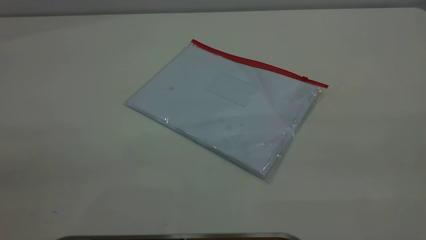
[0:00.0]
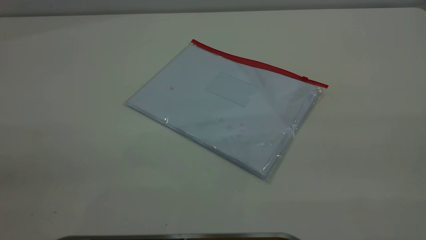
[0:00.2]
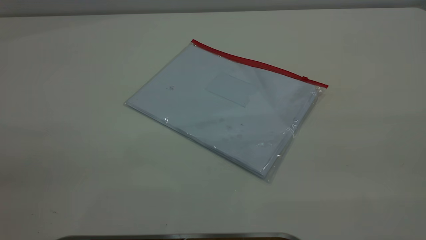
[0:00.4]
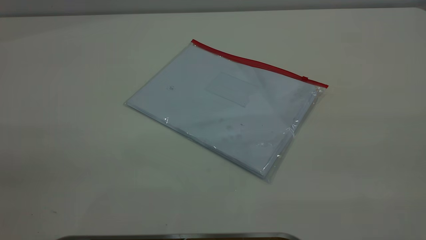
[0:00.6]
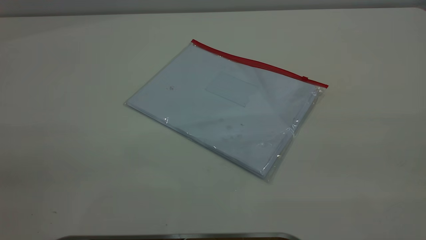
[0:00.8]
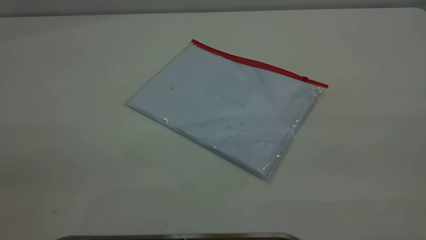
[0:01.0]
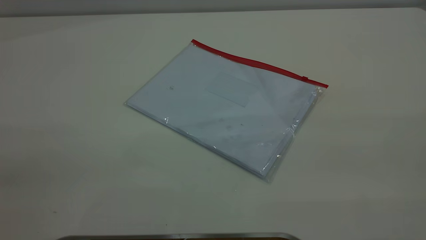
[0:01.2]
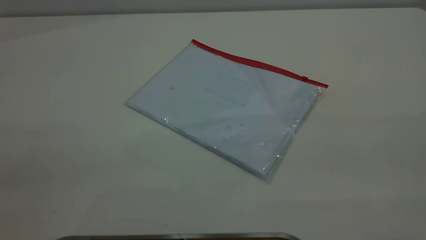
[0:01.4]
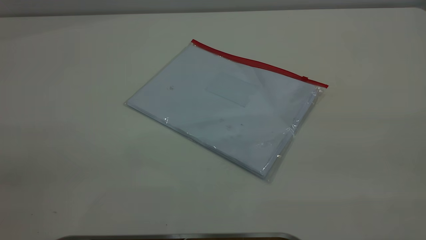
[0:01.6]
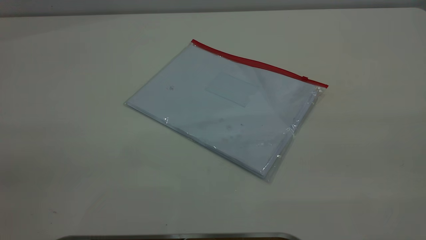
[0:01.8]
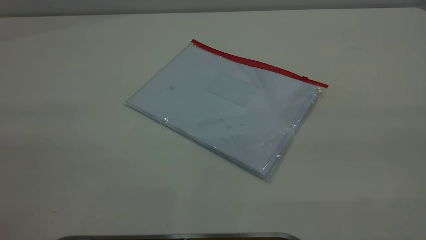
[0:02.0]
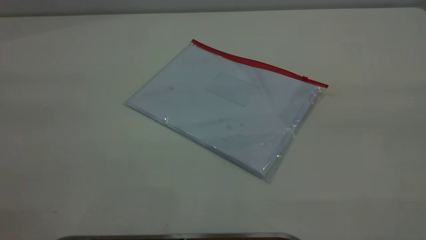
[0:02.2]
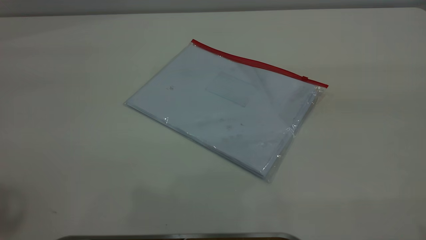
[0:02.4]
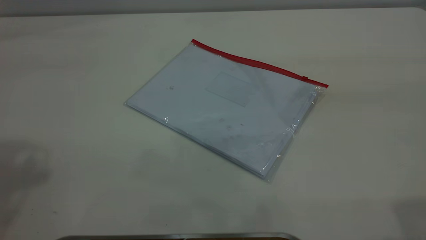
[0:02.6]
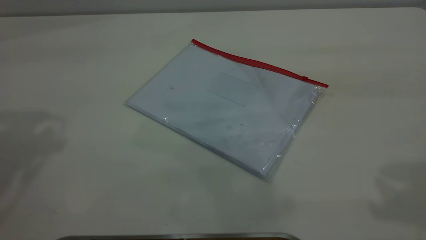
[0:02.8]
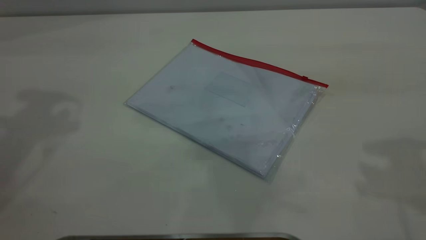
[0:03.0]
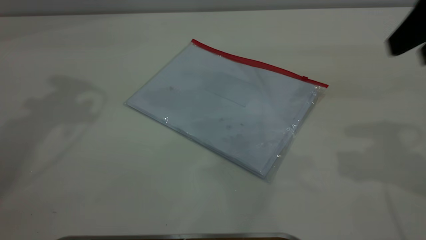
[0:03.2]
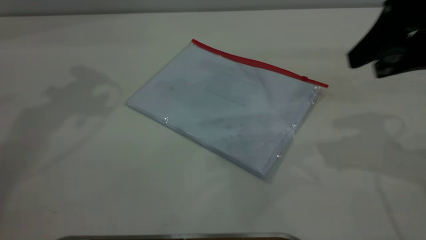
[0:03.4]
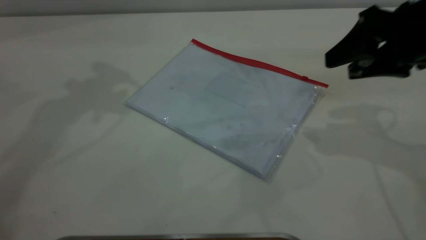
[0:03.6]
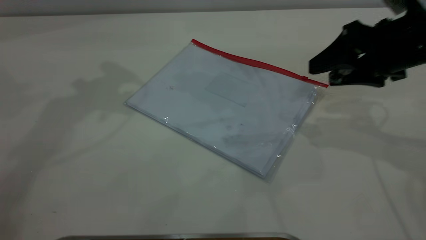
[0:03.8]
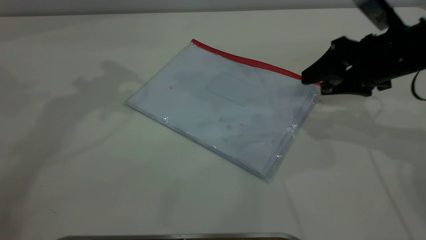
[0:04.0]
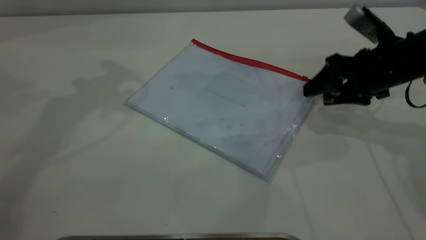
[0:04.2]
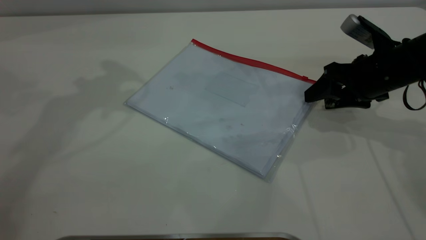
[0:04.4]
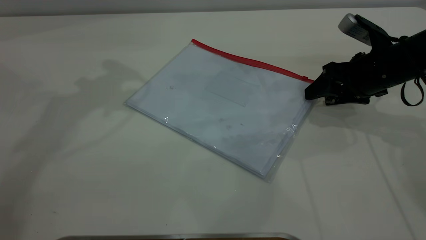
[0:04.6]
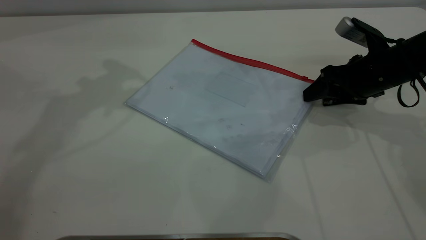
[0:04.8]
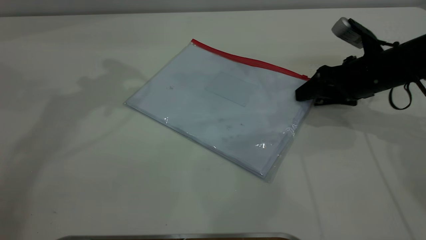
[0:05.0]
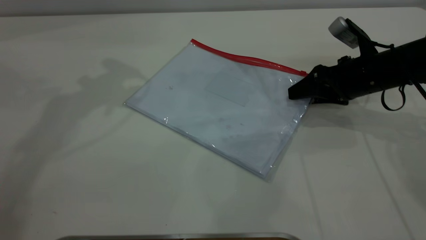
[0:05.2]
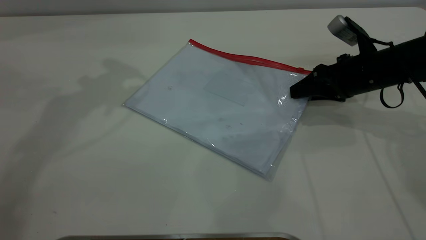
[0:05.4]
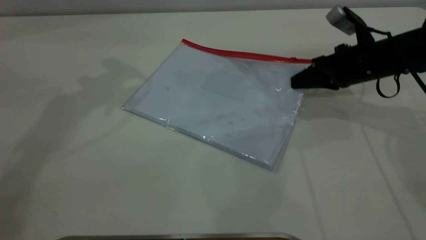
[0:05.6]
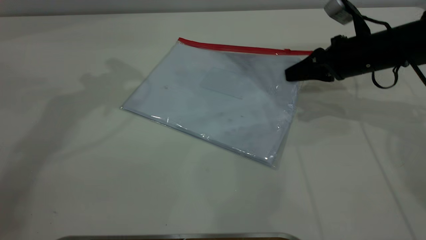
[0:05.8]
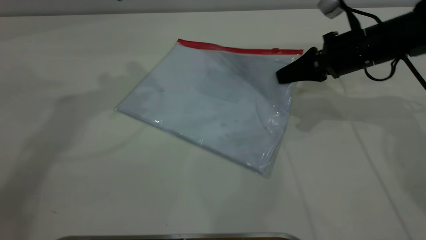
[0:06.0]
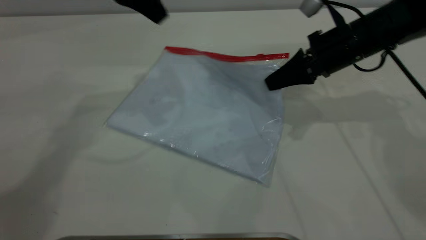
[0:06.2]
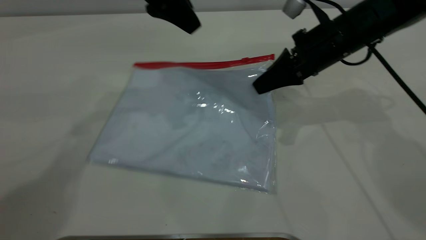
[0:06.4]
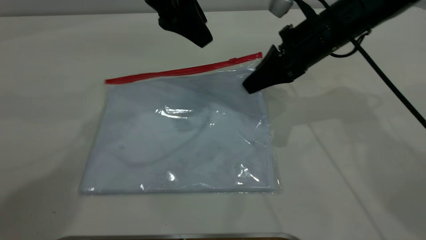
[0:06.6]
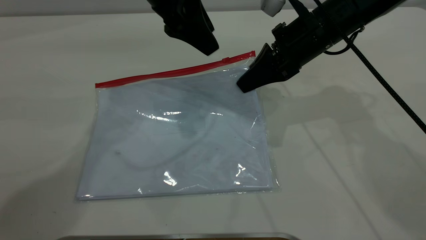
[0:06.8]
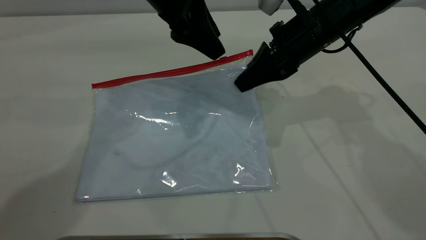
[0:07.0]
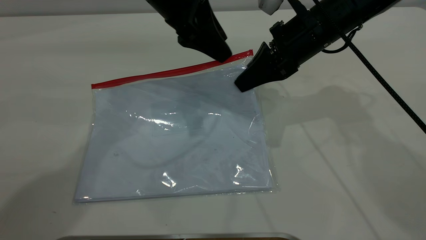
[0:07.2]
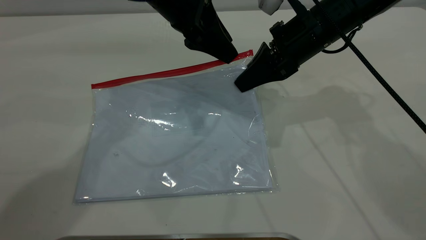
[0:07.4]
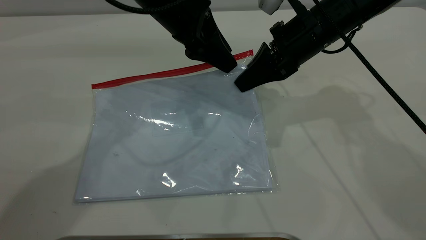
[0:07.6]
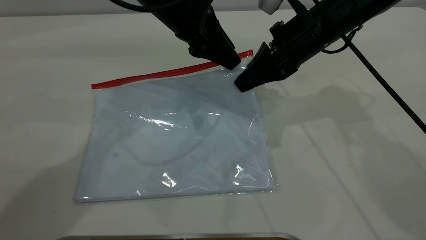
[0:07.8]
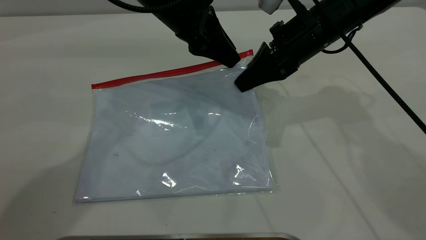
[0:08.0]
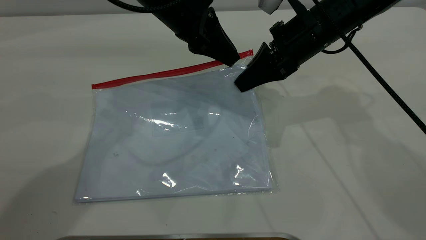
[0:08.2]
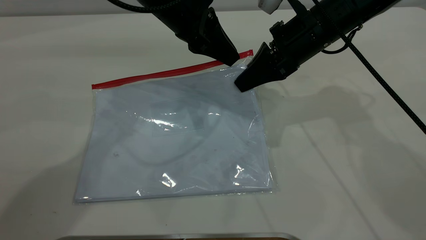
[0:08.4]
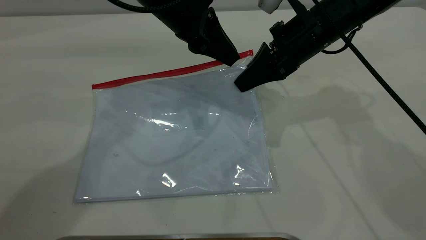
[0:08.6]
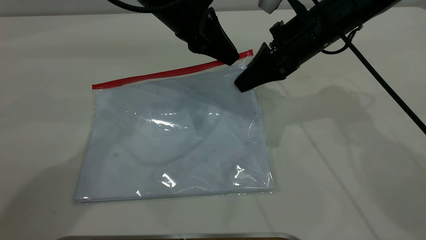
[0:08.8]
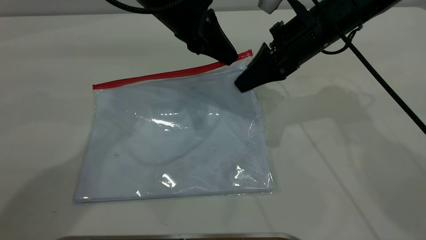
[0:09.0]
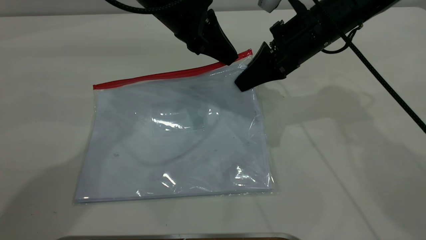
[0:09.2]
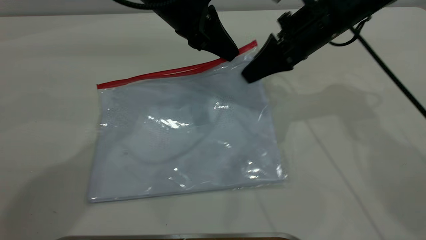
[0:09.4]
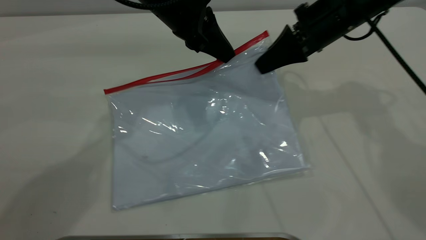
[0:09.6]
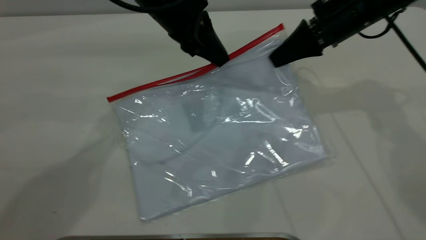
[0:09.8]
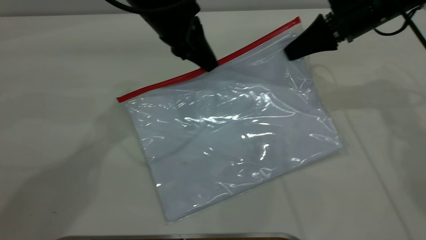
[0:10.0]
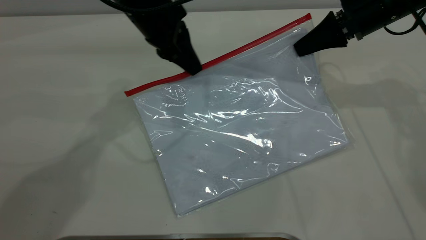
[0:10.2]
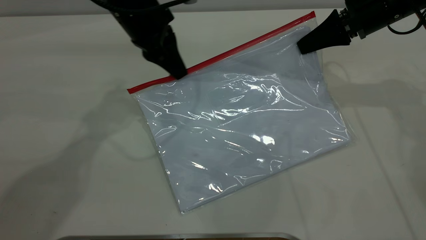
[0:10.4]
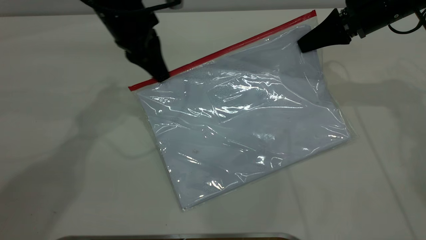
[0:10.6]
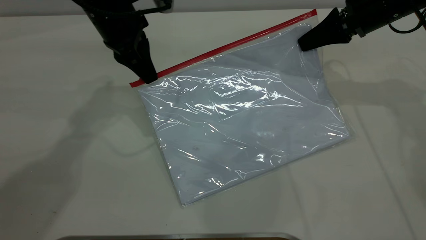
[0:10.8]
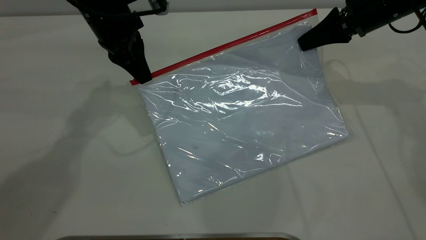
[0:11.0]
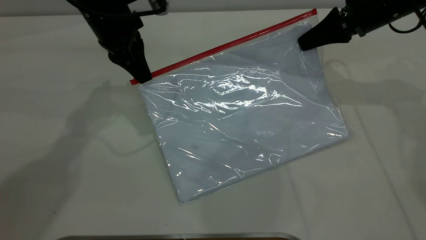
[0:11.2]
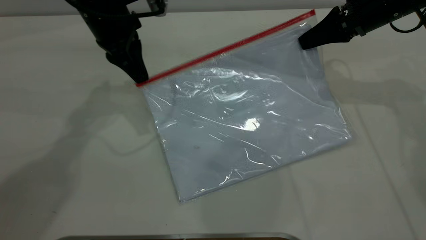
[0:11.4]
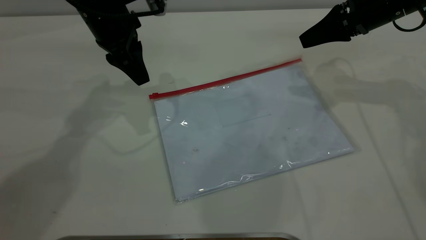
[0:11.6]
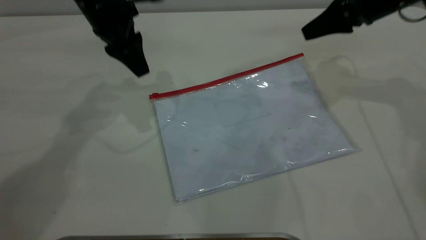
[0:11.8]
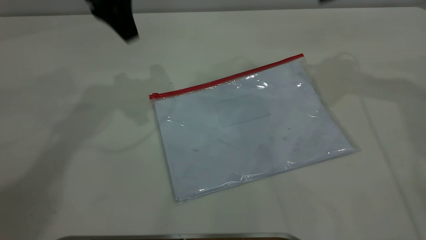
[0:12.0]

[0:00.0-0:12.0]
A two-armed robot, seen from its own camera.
Step, 0:00.0 to 0:06.2: Pick up the transparent plastic bag with the right gripper.
Step, 0:06.4 to 0:11.2: Pulling up the zipper on the transparent plastic bag with the left gripper to close it.
0:00.0 to 0:01.6: The two grippers keep their place.
0:03.0 to 0:04.4: The right gripper is displaced downward and forward by roughly 25 cm.
0:04.4 to 0:06.0: The right gripper ends up approximately 5 cm from where it was, and closes.
0:06.0 to 0:07.6: The left gripper heads to the right and downward, covering about 15 cm. The right gripper travels to the left by about 10 cm.
0:07.6 to 0:09.0: The left gripper closes its fingers.
0:09.0 to 0:10.4: The right gripper travels to the right by some 10 cm, while the left gripper is displaced to the left by some 5 cm.
0:10.4 to 0:12.0: Both grippers move upward, roughly 10 cm. The left gripper opens up, while the right gripper opens.
